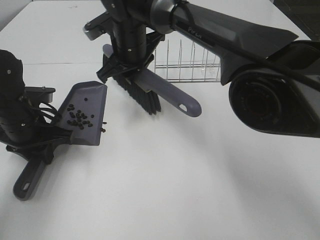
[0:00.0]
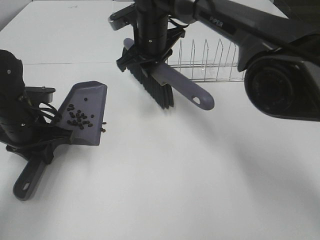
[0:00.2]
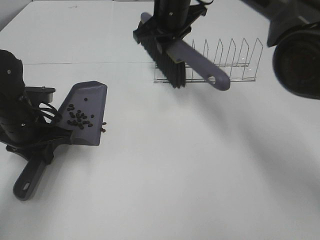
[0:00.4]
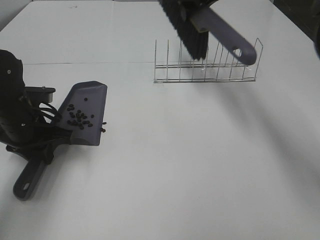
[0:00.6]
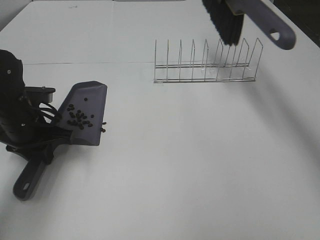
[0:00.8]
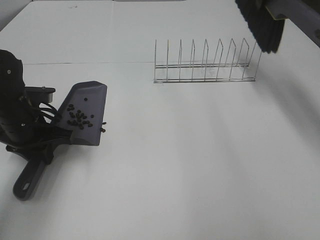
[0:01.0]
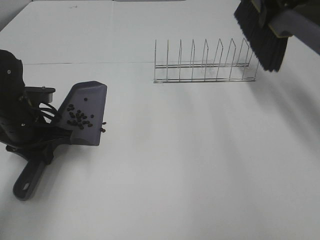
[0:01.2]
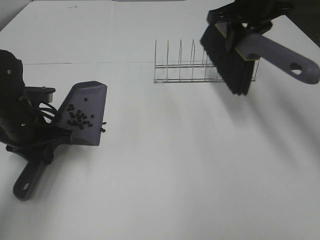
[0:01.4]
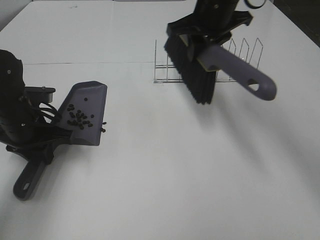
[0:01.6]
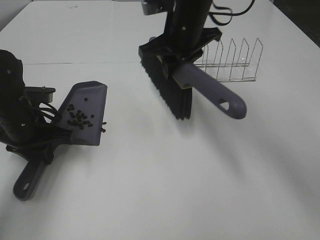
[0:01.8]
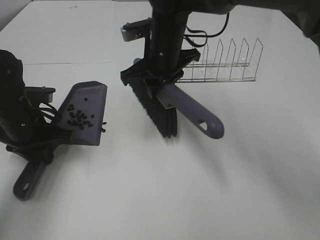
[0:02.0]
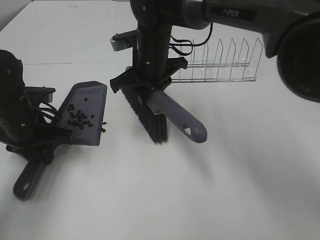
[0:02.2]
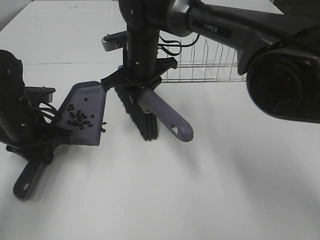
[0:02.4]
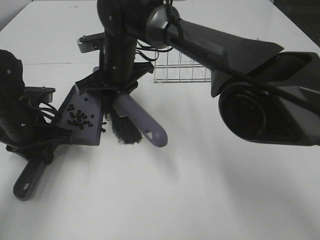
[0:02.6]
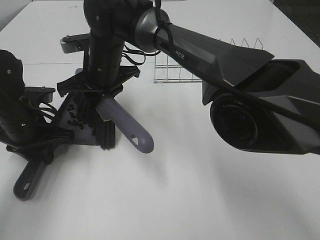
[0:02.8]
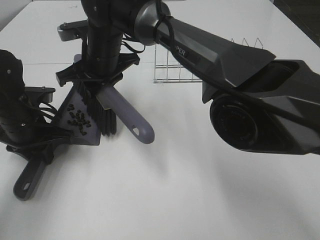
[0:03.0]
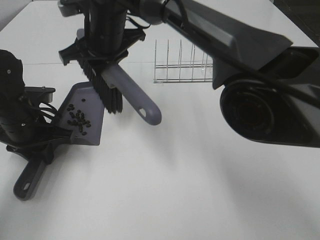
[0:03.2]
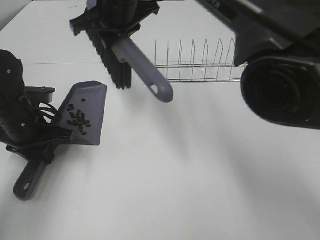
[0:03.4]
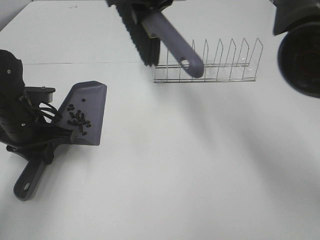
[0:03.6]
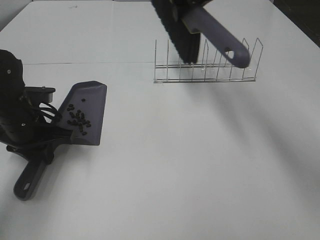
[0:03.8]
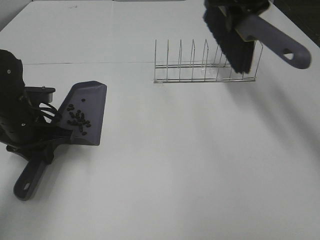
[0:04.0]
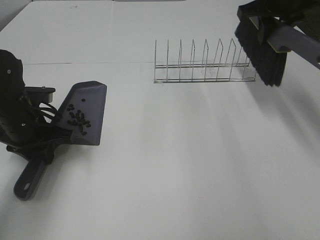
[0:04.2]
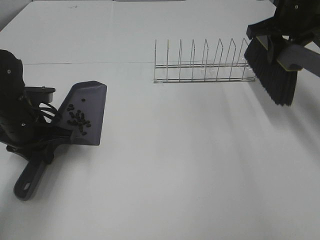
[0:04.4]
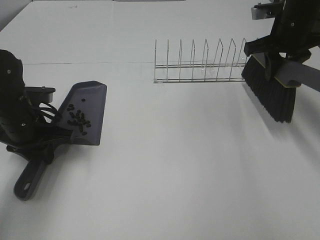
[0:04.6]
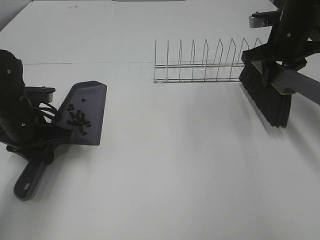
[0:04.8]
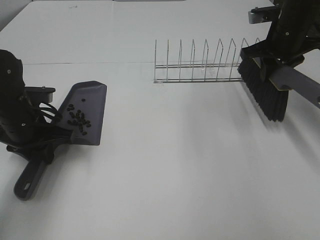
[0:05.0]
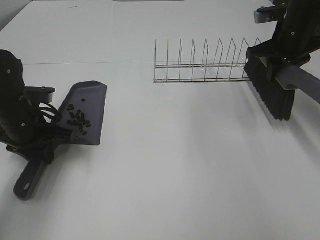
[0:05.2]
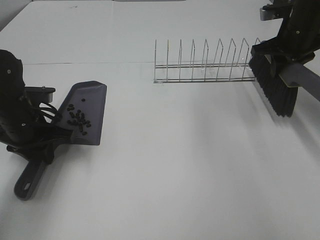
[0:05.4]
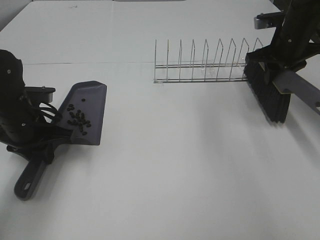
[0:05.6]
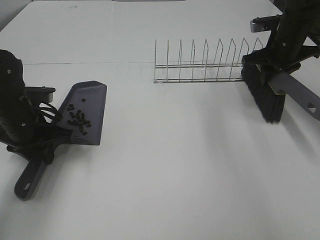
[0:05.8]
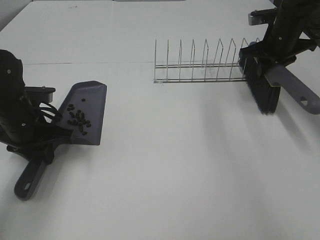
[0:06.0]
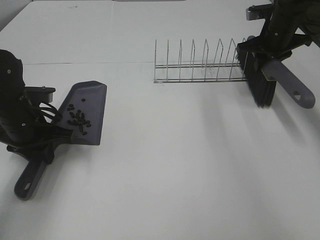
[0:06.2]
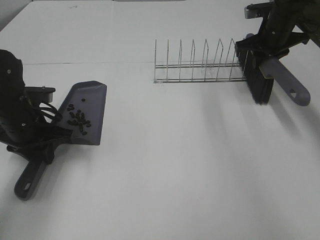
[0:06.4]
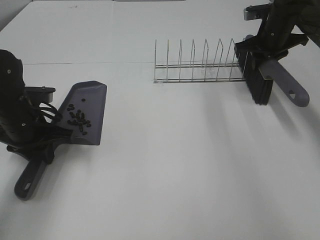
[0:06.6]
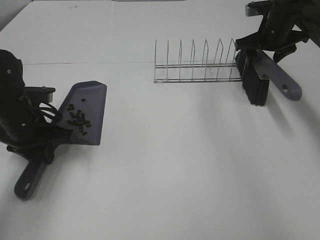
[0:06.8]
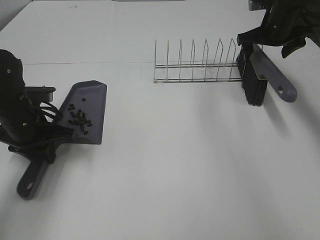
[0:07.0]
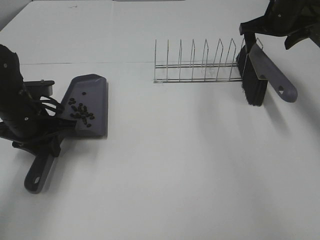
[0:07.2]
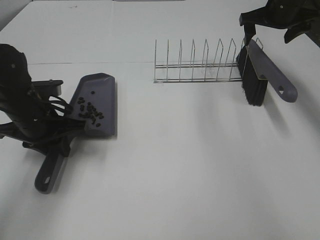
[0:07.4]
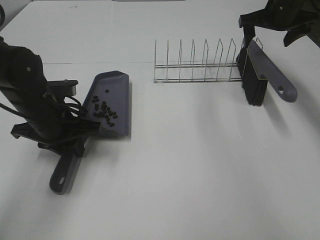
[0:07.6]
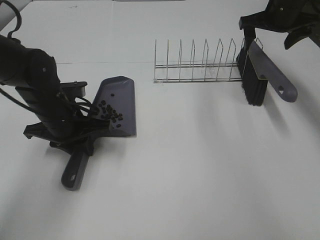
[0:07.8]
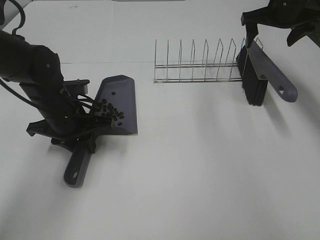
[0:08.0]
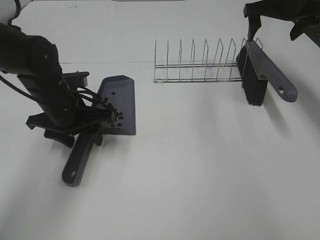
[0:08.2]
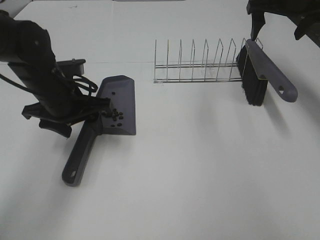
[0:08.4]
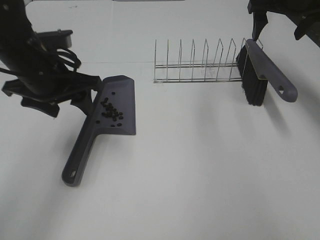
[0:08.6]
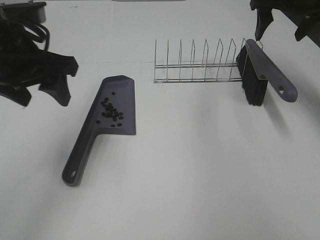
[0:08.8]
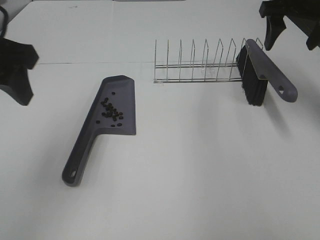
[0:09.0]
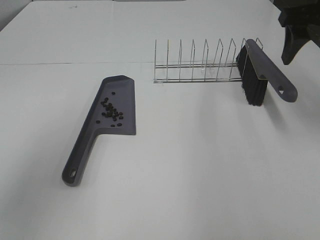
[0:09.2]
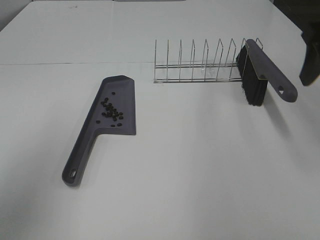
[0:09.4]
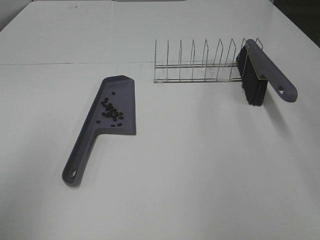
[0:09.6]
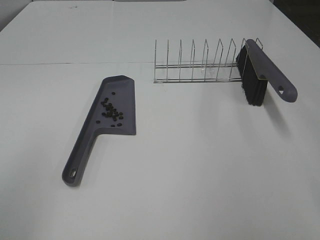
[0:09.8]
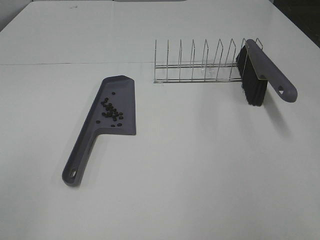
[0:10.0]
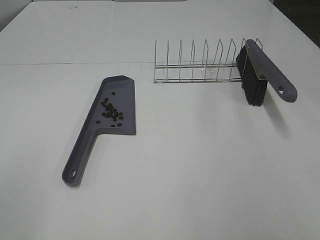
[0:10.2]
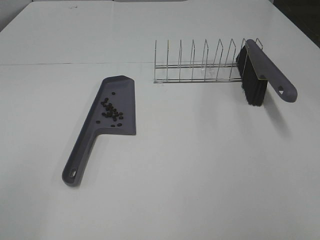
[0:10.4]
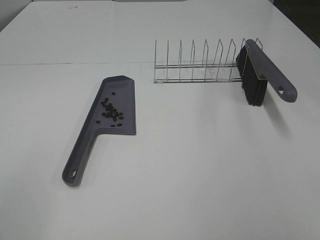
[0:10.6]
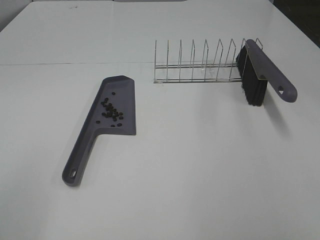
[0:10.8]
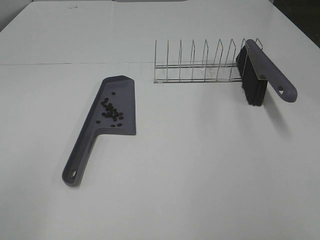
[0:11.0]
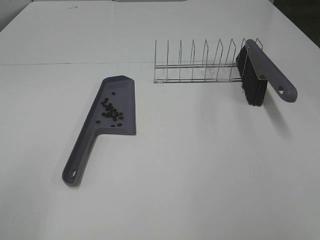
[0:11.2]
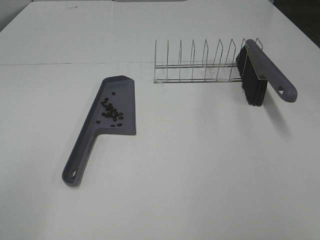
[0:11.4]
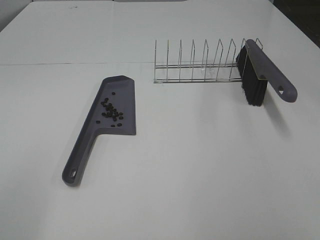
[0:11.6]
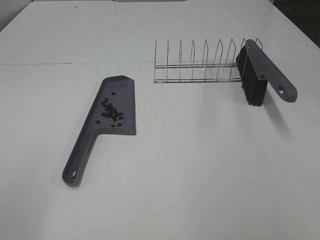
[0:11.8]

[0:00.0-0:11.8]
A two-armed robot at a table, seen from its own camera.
Task of the whole recording: Sweep Coffee Bean.
Step, 0:00.0 to 0:03.0: Right hand:sweep the coffee beans into the dustpan.
Step, 0:03.2 to 0:07.0: Right hand:place the broom on the rack.
Step, 0:07.2 to 0:08.4: Left hand:place the dustpan on the table.
0:00.0 to 0:01.4: The right gripper goes approximately 25 cm to the right and upward.
0:01.4 to 0:03.0: The right gripper moves to the left, roughly 25 cm.
0:03.0 to 0:04.4: The right gripper shifts approximately 35 cm to the right.
0:04.4 to 0:06.0: The right gripper heads downward, covering about 5 cm.
0:06.0 to 0:07.4: The right gripper goes approximately 5 cm upward, and opens up.
0:07.4 to 0:08.8: The left gripper is displaced upward by roughly 15 cm, and opens its fingers; the right gripper goes roughly 10 cm upward and backward.
0:08.8 to 0:10.4: The right gripper goes roughly 40 cm backward, while the left gripper travels backward and to the left by roughly 30 cm.

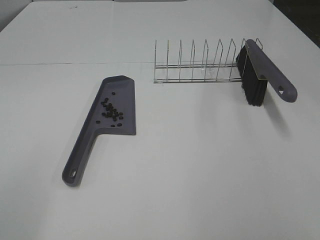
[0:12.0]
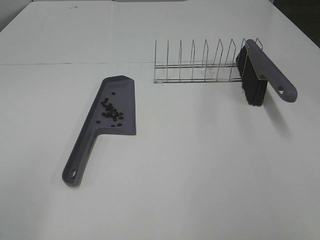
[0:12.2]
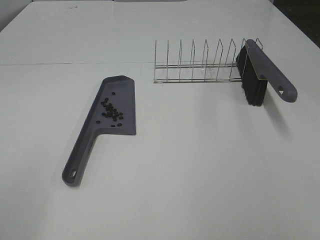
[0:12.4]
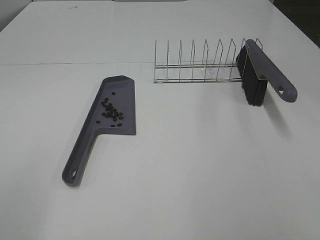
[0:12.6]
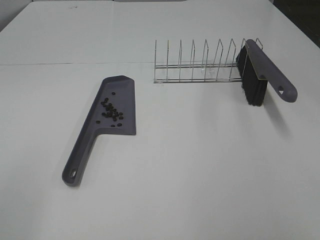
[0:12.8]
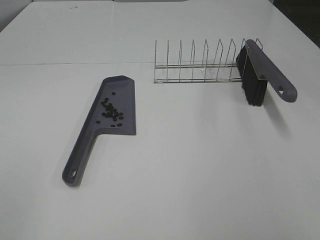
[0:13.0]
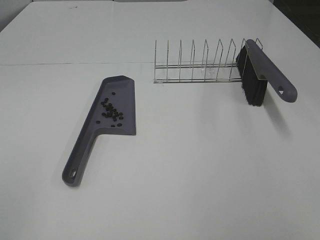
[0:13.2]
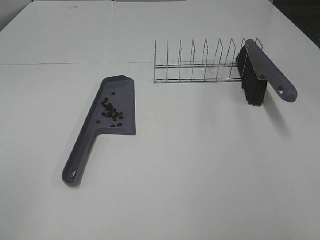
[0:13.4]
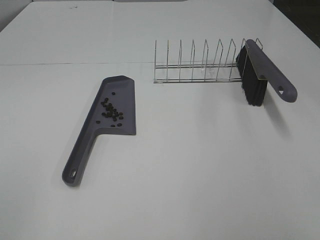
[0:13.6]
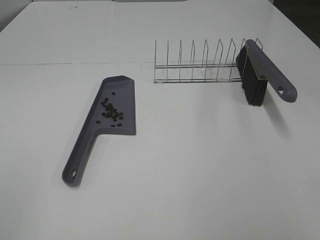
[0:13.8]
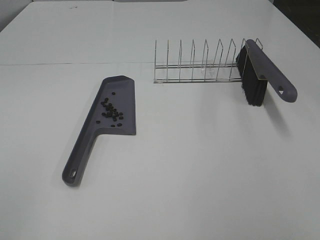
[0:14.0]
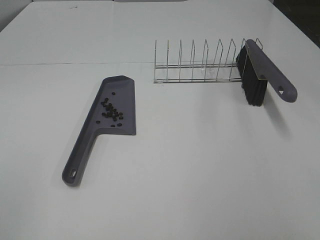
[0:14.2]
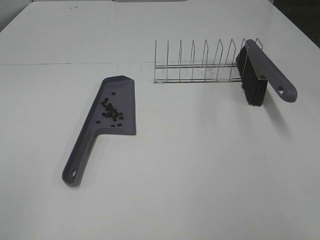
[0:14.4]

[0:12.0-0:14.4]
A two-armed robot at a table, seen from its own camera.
Task of the whole recording: Sweep Coffee Bean.
0:13.2 to 0:14.4: The two grippers keep their place.
